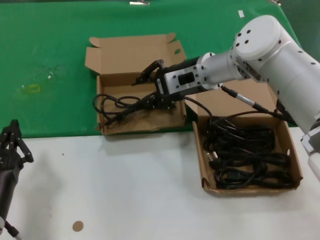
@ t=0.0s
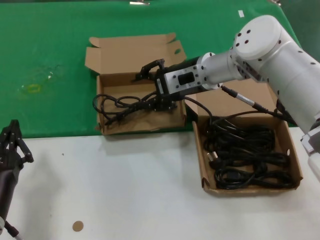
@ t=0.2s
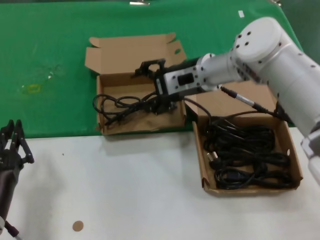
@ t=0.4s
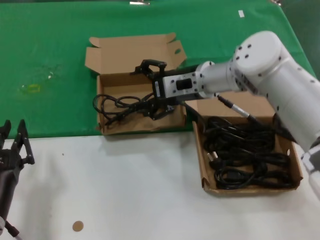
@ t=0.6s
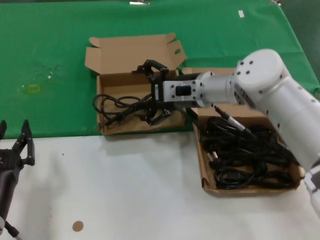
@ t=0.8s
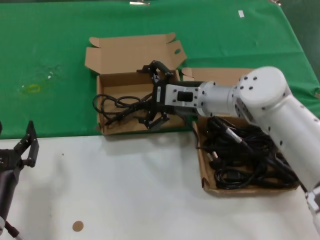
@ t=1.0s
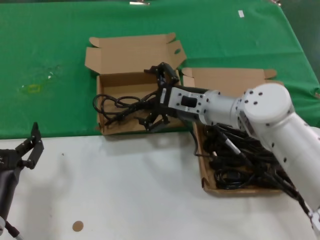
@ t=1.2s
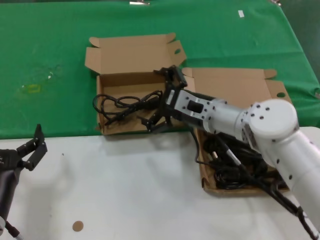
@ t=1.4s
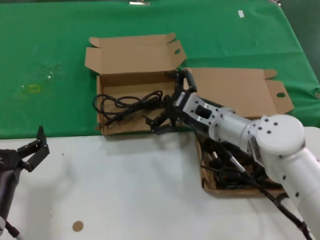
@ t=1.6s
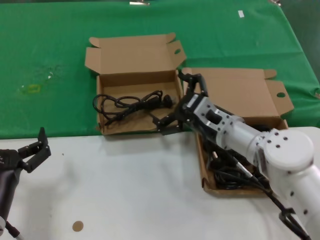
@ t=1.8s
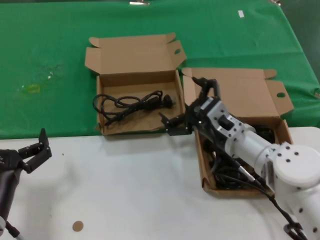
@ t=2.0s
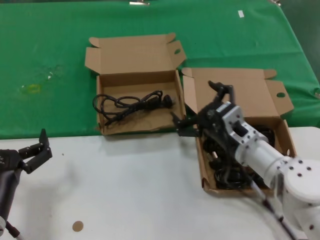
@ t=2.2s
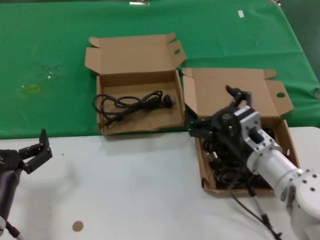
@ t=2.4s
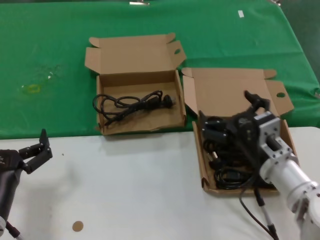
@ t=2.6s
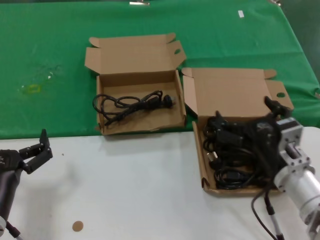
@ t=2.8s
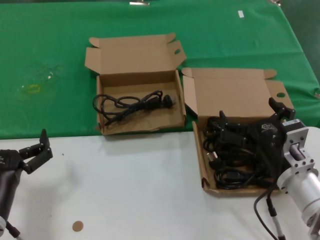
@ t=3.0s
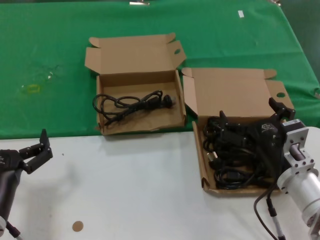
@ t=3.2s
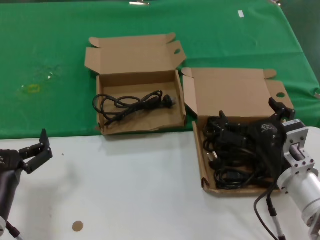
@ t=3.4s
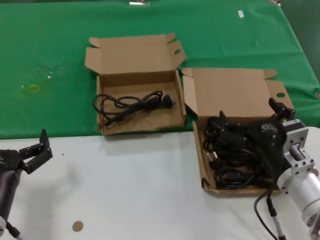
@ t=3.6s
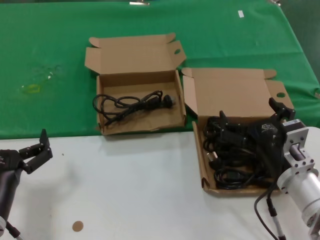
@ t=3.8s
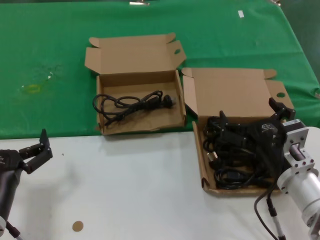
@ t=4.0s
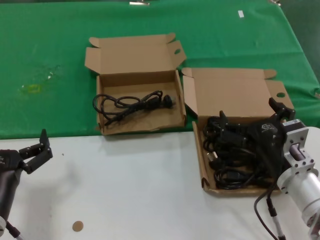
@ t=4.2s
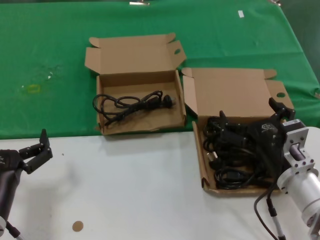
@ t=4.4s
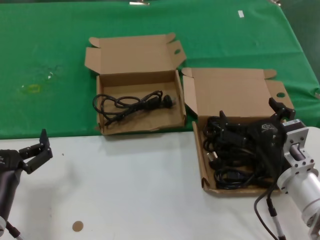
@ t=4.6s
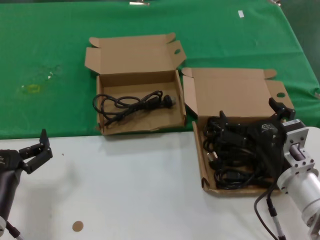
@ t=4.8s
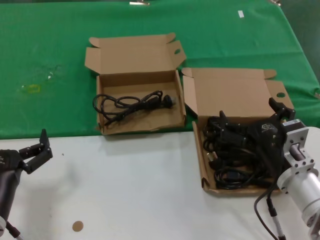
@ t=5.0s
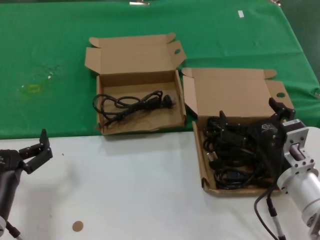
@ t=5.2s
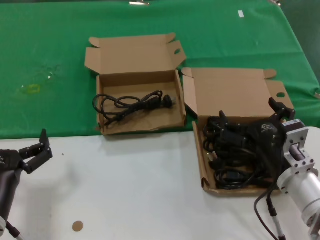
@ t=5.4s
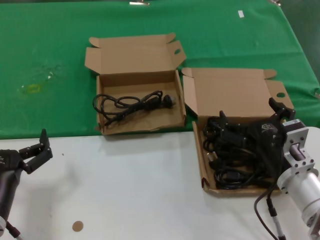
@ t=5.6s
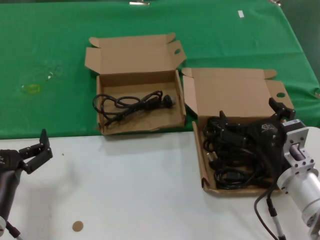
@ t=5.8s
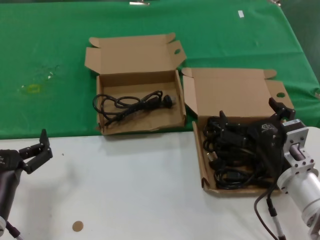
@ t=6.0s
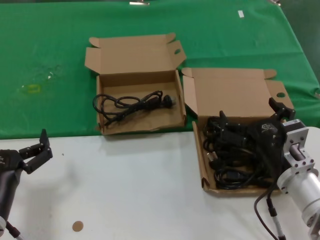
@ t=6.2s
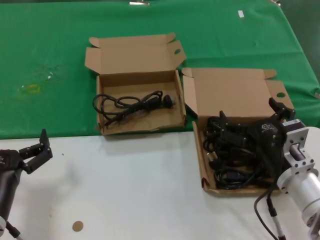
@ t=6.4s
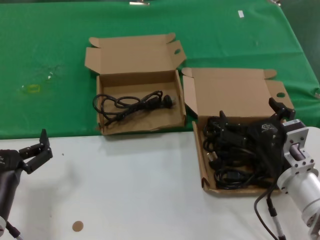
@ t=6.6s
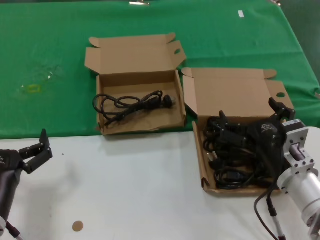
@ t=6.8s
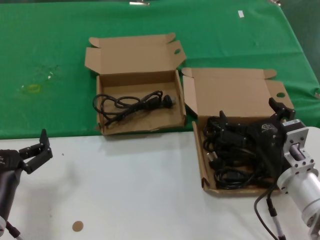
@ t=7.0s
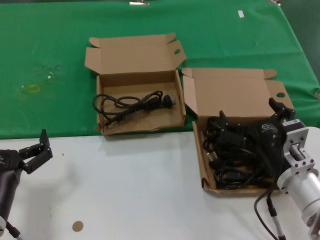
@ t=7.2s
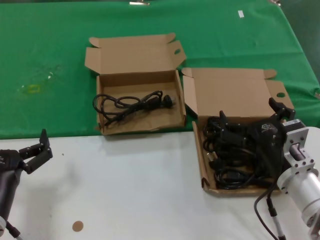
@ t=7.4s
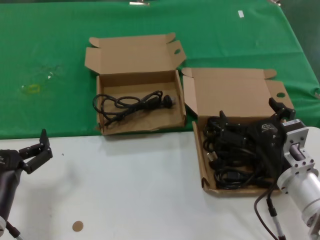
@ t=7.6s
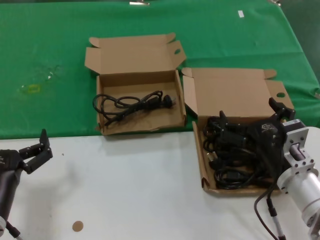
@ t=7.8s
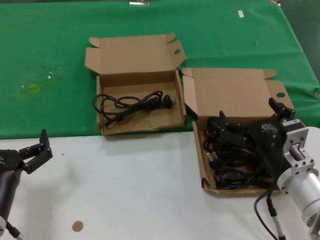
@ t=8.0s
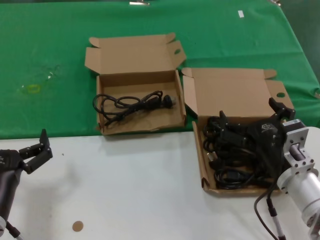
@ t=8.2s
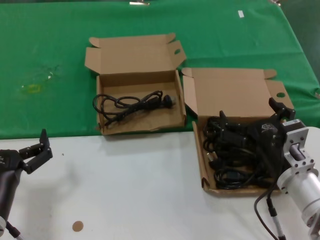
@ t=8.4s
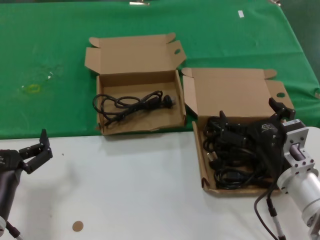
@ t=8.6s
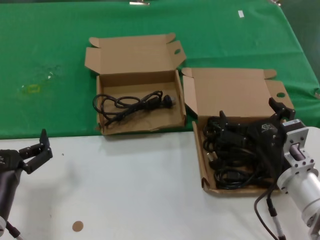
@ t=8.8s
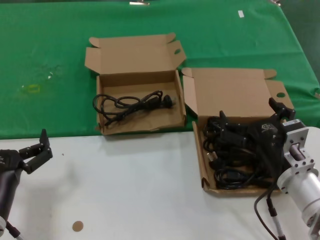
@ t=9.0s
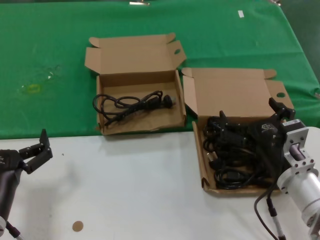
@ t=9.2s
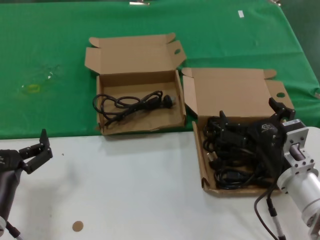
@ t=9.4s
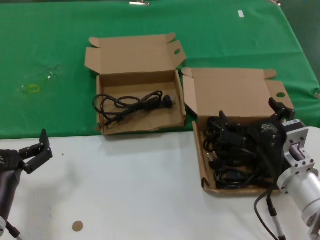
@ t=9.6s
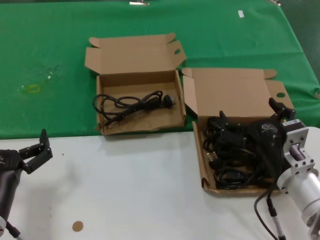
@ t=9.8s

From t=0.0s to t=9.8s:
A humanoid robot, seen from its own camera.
Task of the whole recording: take the parts from the box containing them and put them into an empty box.
From t=0.0s to t=1.4s: The right hand goes approximately 10 cm downward and backward.
From t=1.4s to t=2.8s: The right hand shifts approximately 20 cm backward and to the right.
From t=2.8s to t=9.8s: Both hands stay put.

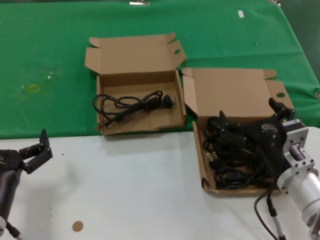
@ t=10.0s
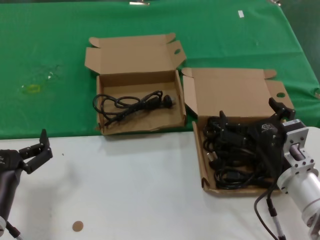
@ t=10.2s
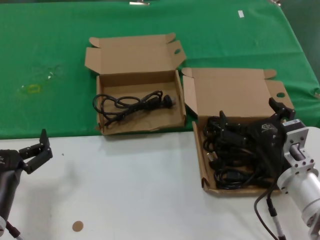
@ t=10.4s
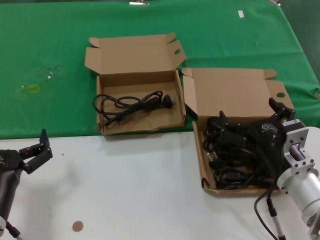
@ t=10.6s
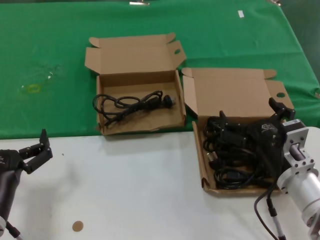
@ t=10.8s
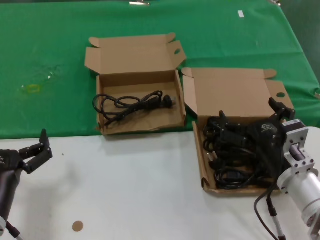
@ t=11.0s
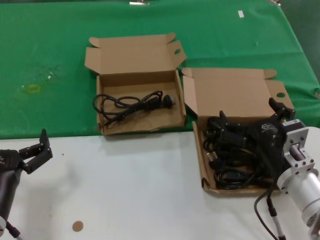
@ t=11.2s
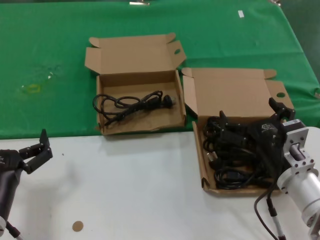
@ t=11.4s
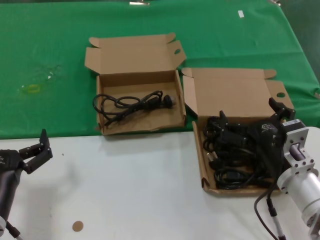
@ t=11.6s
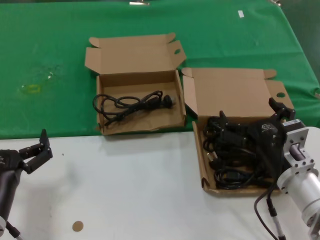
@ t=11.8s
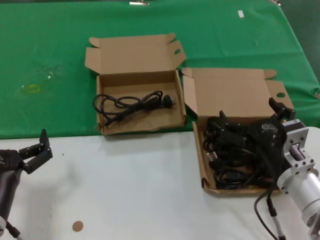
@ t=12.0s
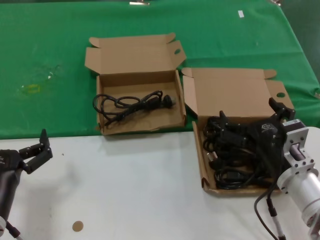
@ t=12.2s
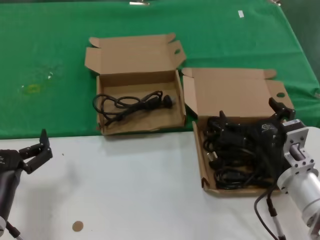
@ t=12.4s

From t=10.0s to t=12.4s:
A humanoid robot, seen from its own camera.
Task of the whole recording: take the parts from the box containing them and put them into an empty box.
From t=10.0s to t=12.4s: Both hands stay put.
